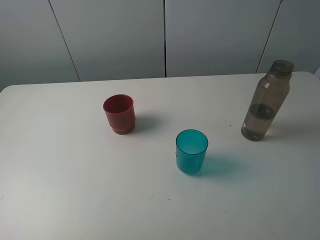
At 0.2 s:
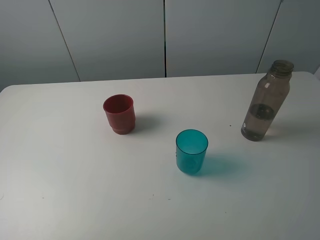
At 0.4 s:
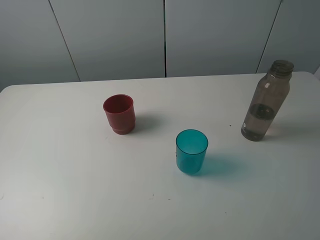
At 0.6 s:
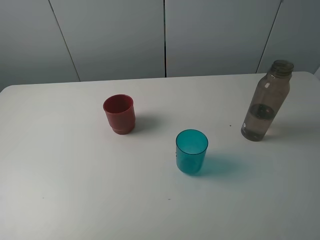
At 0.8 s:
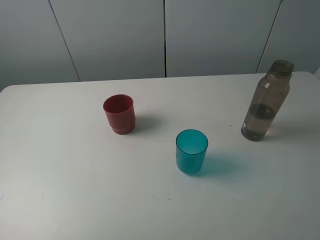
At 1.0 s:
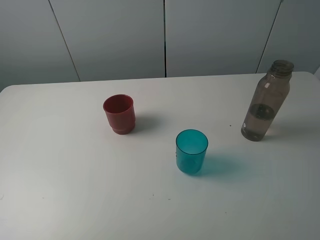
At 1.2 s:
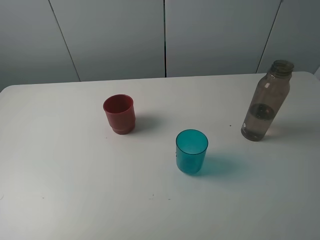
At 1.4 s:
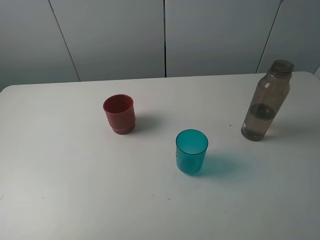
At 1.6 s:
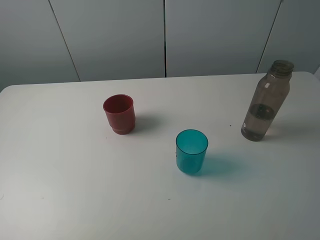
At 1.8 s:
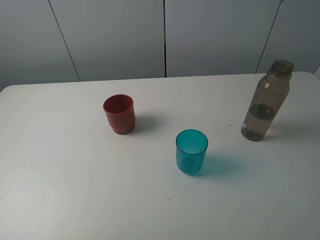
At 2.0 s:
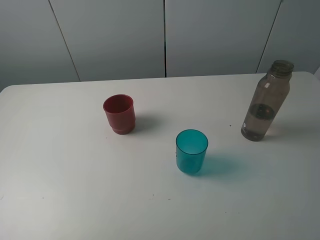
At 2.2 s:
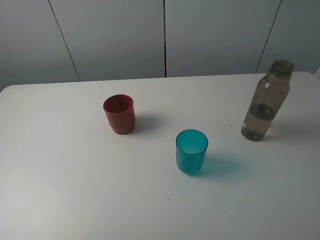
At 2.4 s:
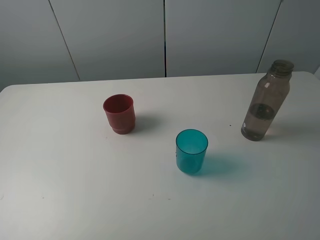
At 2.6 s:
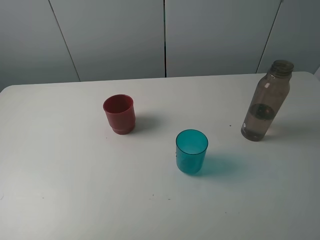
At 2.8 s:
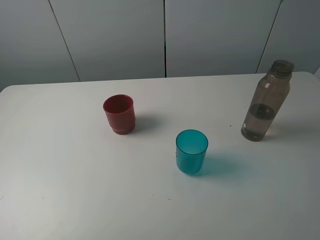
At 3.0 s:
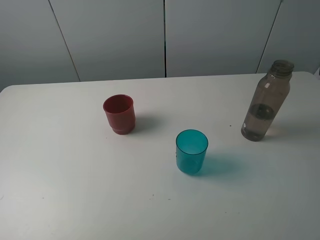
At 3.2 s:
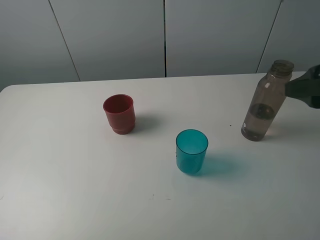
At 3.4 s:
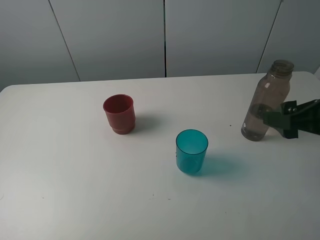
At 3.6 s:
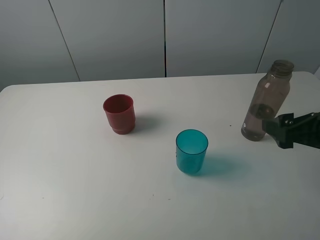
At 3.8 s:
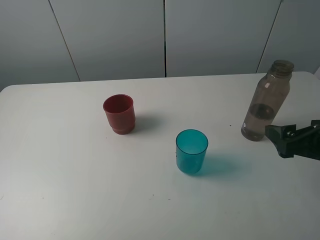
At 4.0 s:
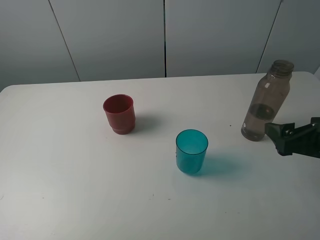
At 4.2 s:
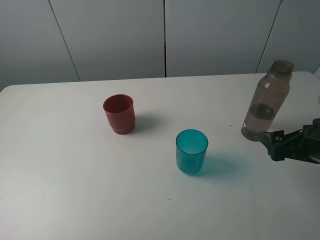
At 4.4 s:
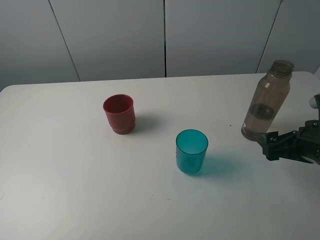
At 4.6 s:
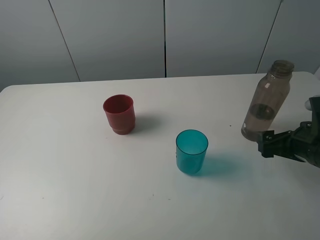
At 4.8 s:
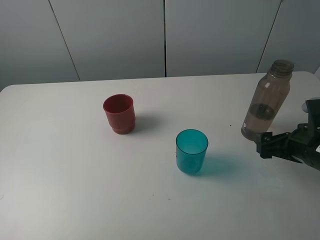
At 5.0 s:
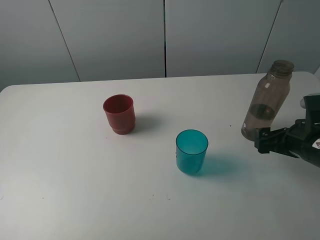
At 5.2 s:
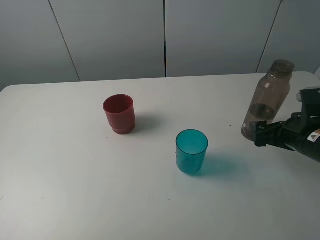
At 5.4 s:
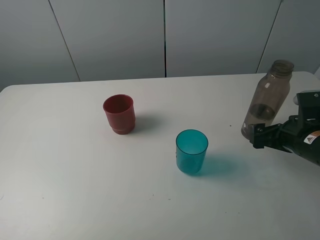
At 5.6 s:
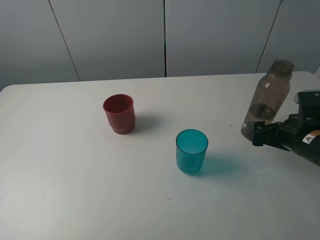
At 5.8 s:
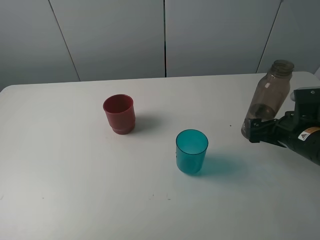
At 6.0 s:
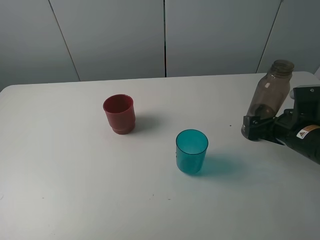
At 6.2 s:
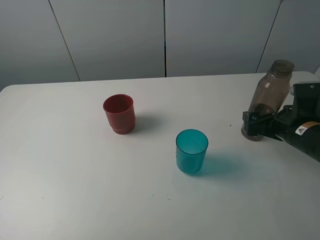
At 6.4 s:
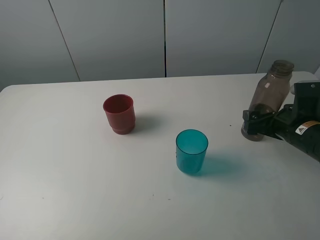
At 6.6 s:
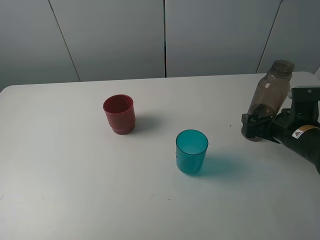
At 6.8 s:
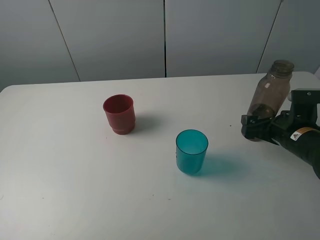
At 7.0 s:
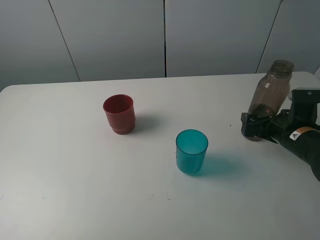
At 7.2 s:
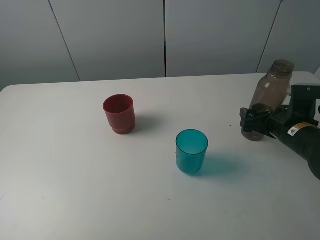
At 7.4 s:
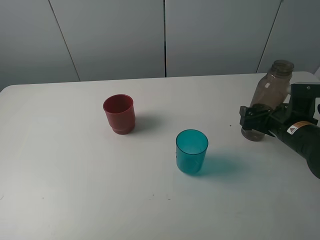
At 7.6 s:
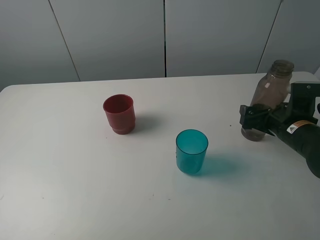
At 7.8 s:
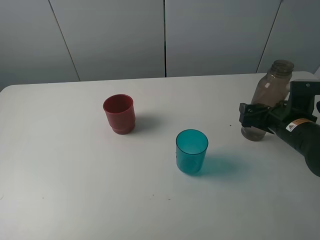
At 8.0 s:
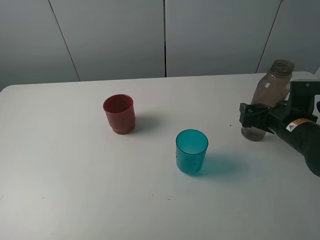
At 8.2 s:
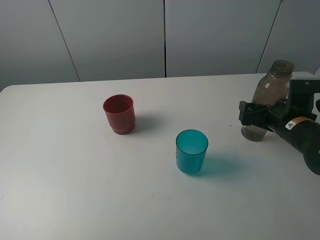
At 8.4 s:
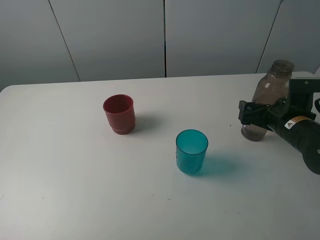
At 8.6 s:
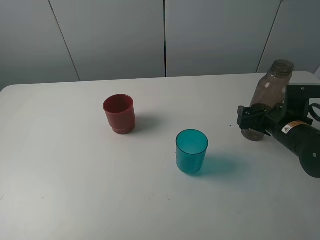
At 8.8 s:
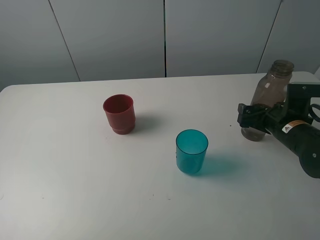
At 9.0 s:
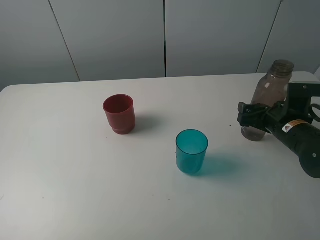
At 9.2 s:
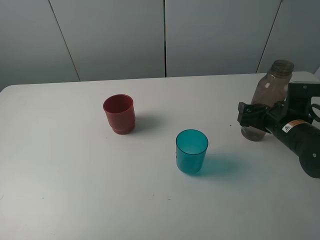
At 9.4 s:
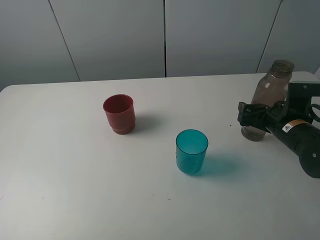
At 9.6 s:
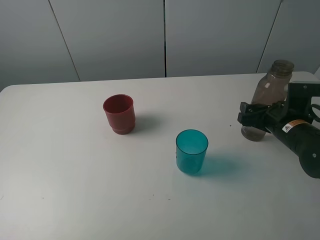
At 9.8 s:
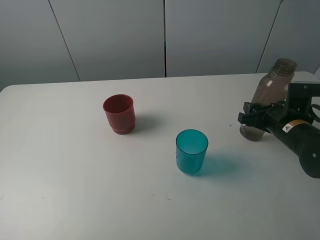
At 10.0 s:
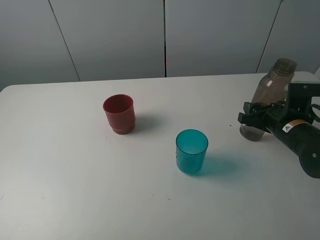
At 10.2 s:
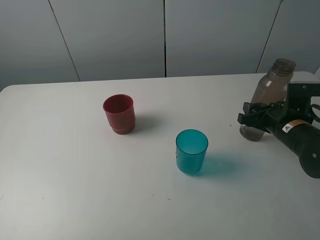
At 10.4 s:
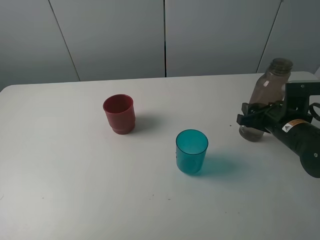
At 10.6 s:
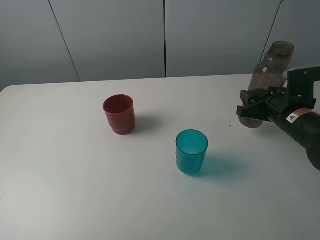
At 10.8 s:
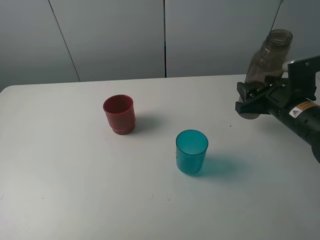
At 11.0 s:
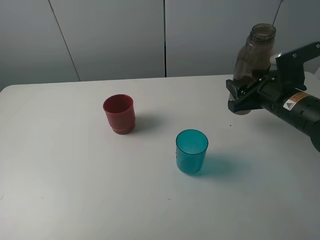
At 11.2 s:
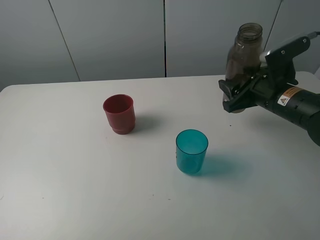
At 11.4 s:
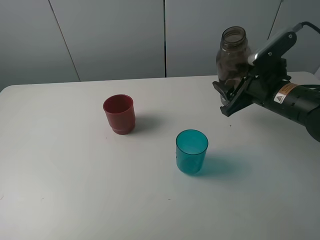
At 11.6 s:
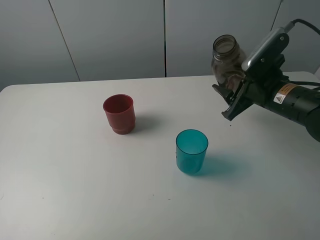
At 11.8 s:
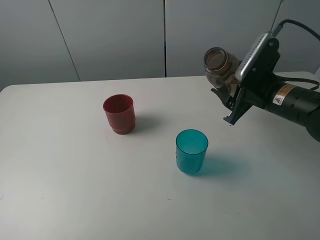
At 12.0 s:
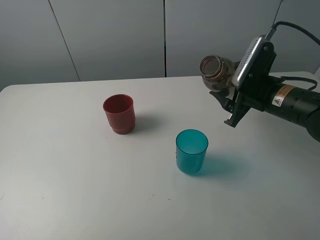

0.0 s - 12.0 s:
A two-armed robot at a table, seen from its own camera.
Task of the whole recording: pick up the bottle and pour water into the cup, then pick up the cup containing water and pour it into another cup.
Step, 0.0 s - 9.6 s: Grasp the brown bottle with the right gripper.
0.0 s - 1.6 s: Neither gripper changes place.
3.0 s - 4.4 s: The right gripper shifts roughly 15 cm downward.
4.4 s - 6.0 s: The right gripper shifts roughly 5 cm forward.
6.0 s - 7.6 s: The grippers move only a little.
7.6 s - 9.0 s: Neither gripper changes place.
9.0 s - 10.4 s: The right gripper closes its fingers.
10.4 s - 12.0 s: The right gripper heads upward, covering roughly 5 cm.

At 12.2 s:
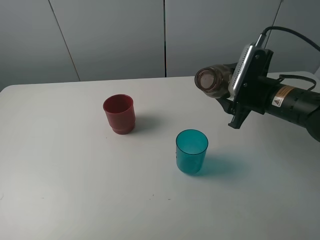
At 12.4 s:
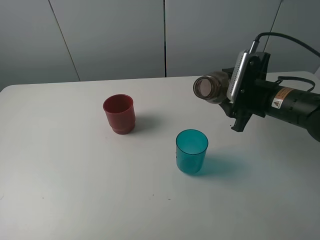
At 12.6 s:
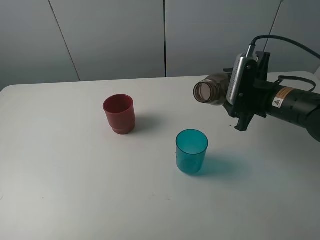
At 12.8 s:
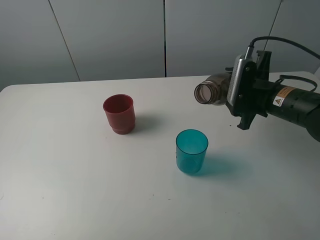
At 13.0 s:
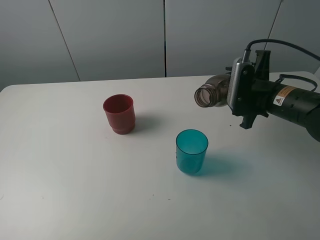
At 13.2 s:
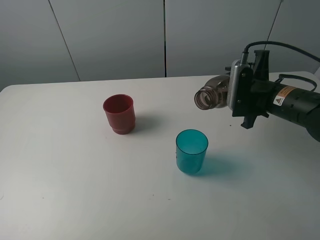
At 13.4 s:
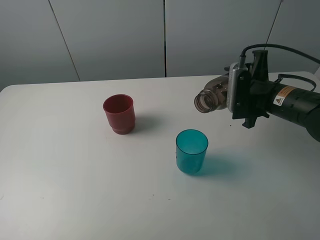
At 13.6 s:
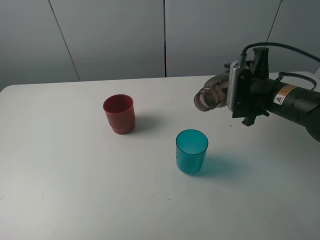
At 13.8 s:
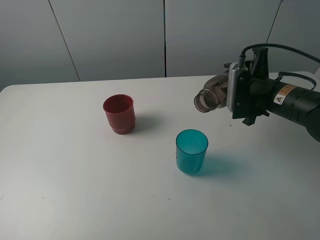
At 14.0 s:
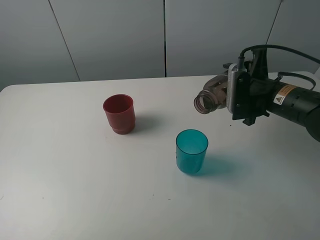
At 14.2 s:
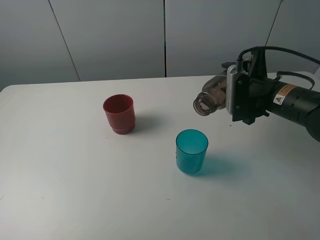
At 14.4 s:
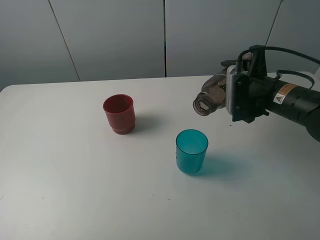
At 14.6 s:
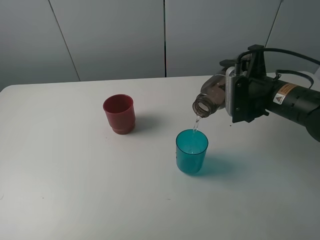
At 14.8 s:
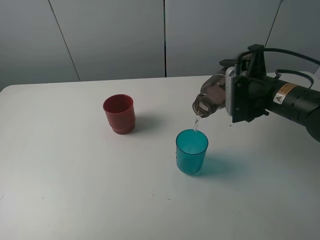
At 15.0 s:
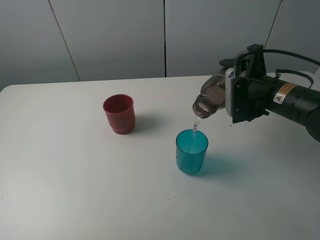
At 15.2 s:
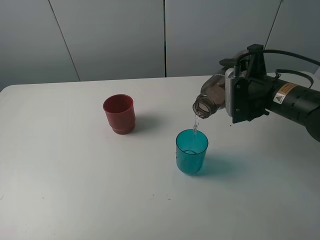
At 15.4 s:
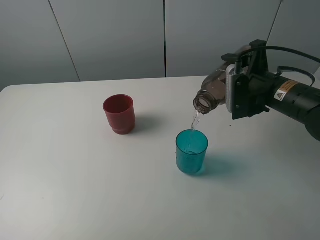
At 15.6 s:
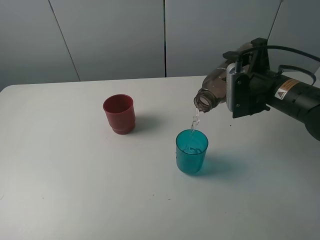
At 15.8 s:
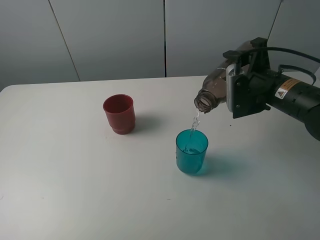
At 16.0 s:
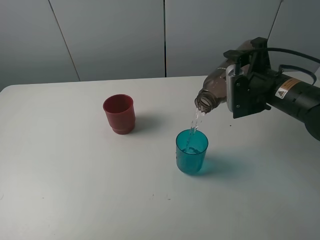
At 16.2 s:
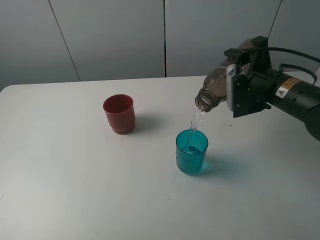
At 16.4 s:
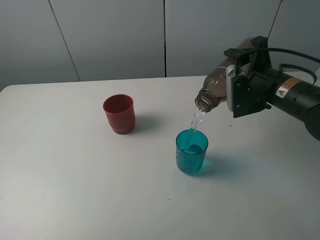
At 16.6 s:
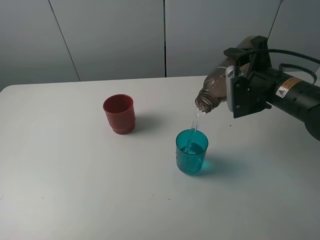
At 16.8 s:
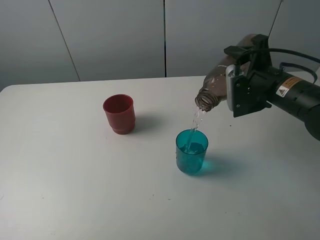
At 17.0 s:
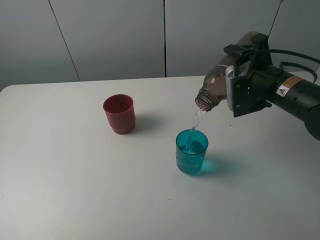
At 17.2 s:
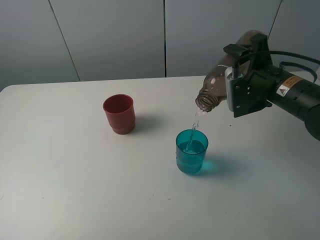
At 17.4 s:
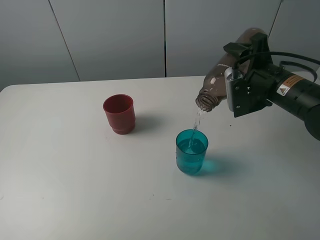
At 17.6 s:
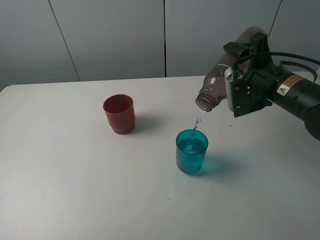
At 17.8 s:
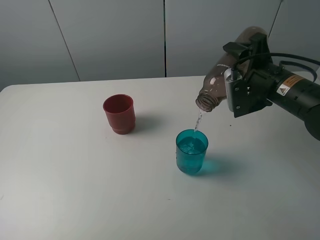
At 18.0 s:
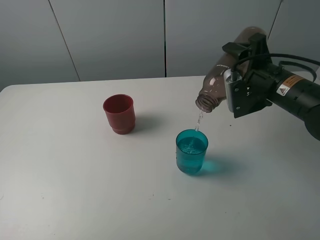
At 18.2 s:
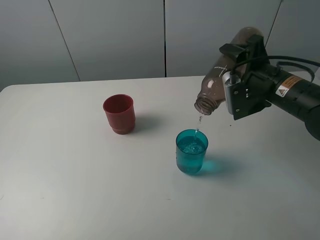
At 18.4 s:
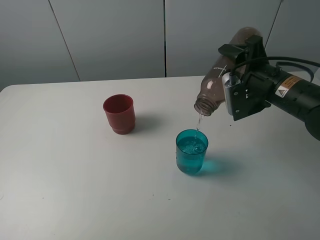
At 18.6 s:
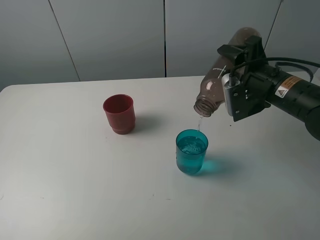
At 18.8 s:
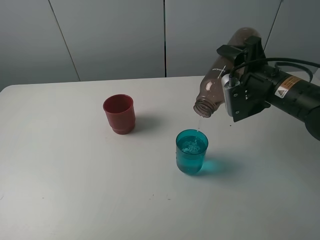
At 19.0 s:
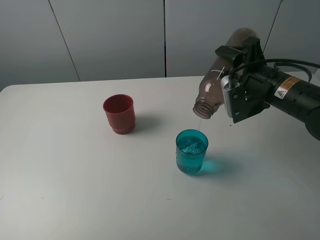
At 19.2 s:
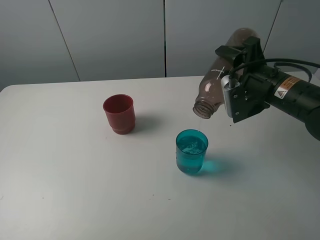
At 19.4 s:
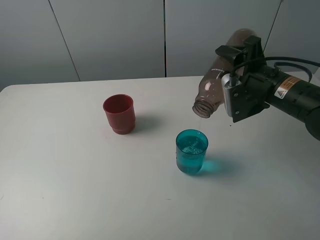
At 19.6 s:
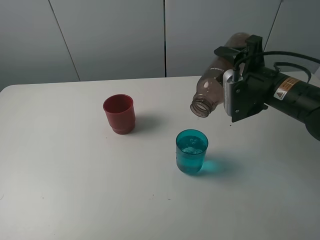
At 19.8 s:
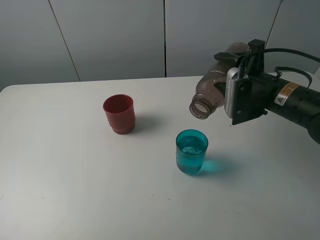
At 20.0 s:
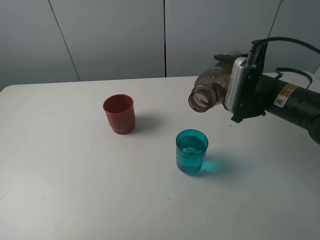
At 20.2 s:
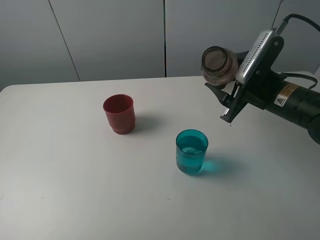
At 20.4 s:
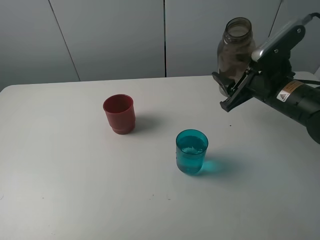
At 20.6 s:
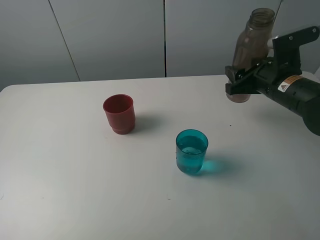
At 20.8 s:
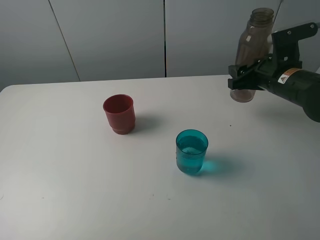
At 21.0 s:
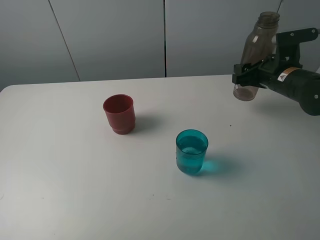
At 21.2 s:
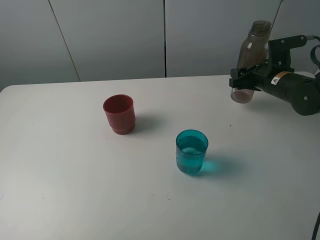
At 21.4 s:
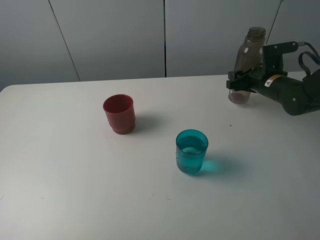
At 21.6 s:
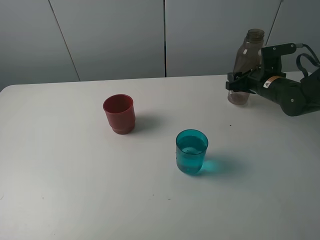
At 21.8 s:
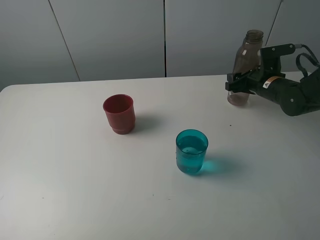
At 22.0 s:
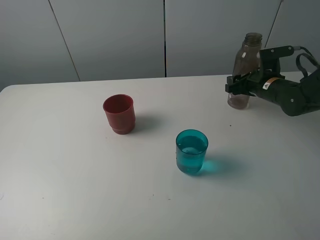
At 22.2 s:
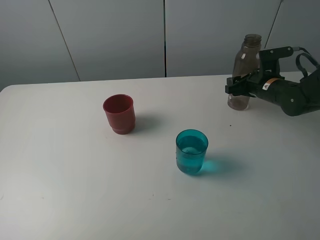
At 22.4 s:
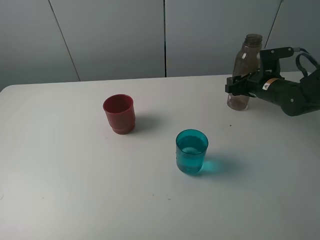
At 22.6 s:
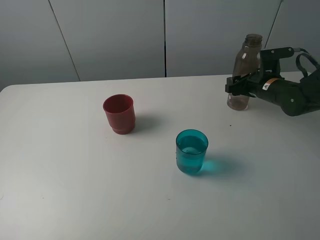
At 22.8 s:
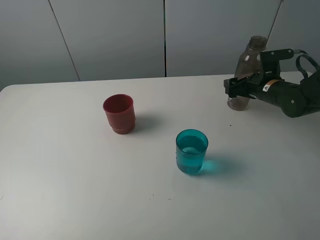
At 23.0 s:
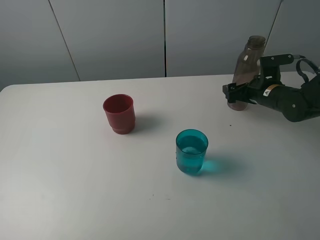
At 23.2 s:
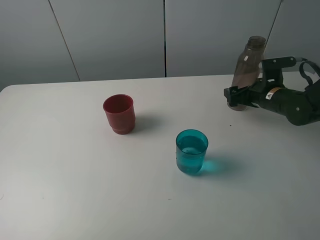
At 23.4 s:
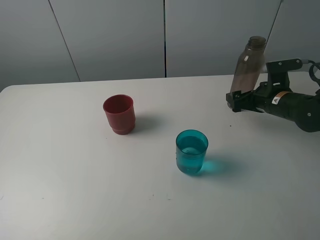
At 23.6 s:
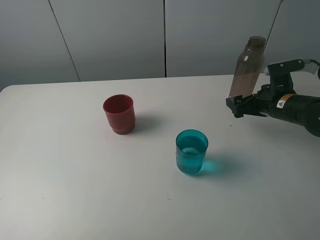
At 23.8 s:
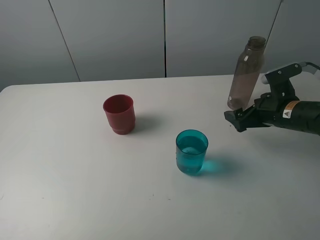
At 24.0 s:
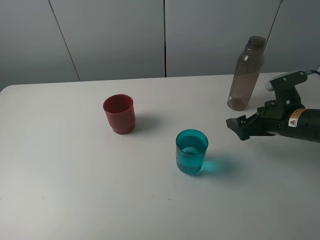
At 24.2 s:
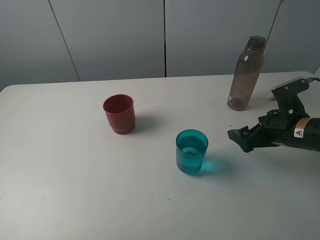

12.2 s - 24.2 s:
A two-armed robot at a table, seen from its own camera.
Task of the whole recording: pick up the bottle and pour water into the cup, then pick up the cup containing water and pour it into another cup.
Step, 12.2 s - 19.2 s: Pour water from brown bottle to blue cup with the right gripper.
Step, 19.4 s - 22.8 s: Place the brown bottle with the right gripper.
13.8 s - 16.6 s: The grippers make only small movements.
16.6 s - 19.8 s: There are only small adjustments of the grippers.
19.8 s - 21.2 s: The right gripper moves forward and to the right, approximately 10 cm.
21.2 s - 22.6 s: The grippers make only small movements.
22.6 s - 24.2 s: The right gripper goes about 15 cm backward, and opens.
